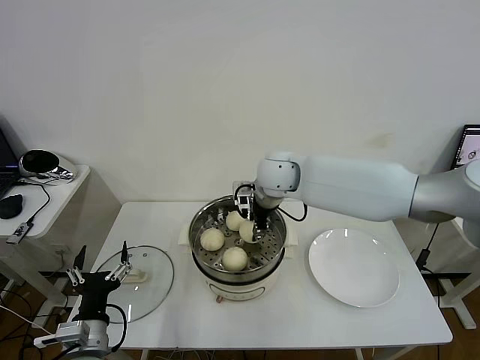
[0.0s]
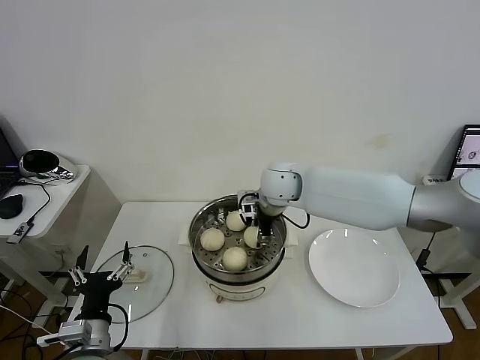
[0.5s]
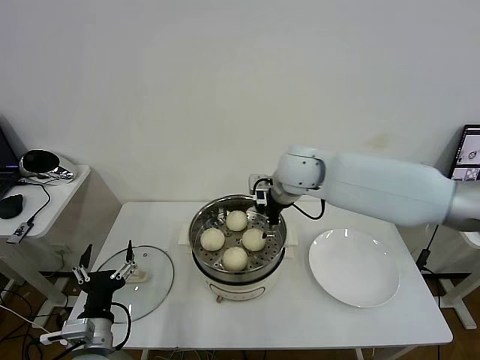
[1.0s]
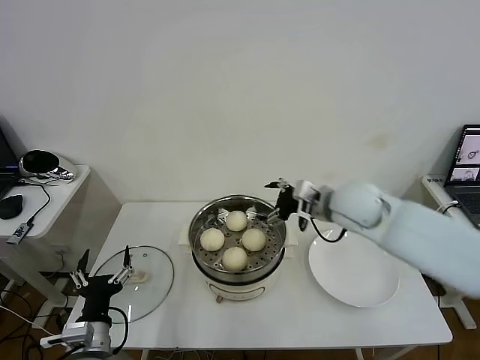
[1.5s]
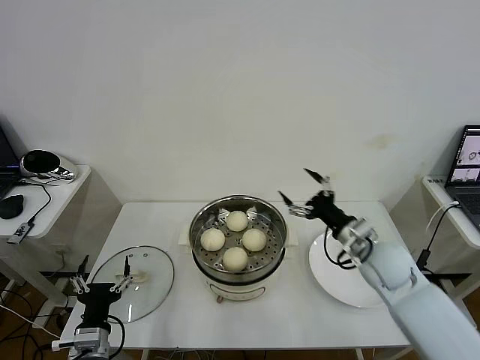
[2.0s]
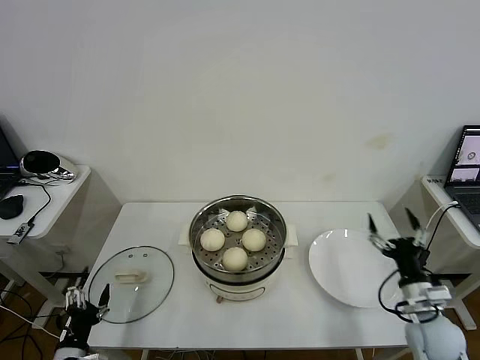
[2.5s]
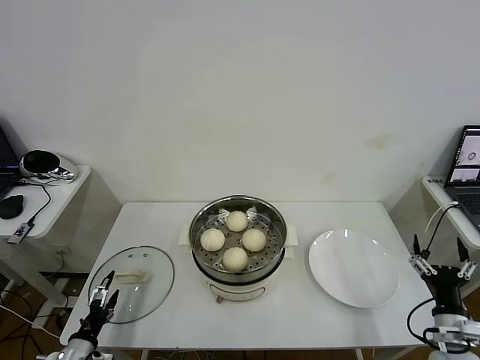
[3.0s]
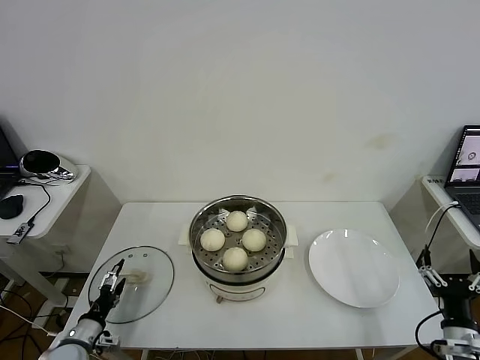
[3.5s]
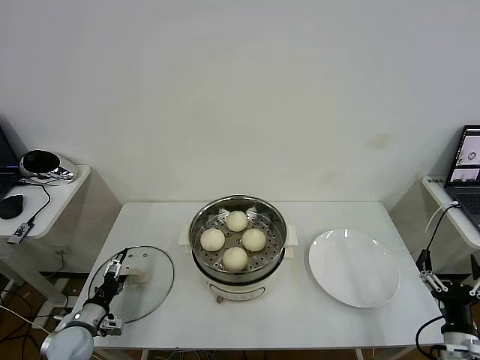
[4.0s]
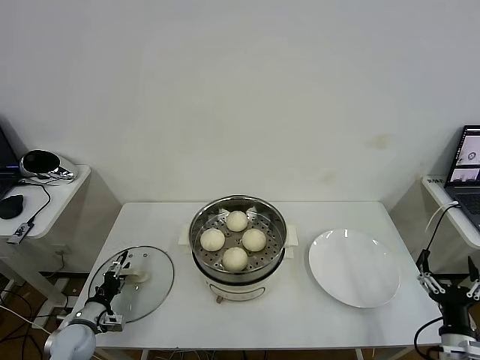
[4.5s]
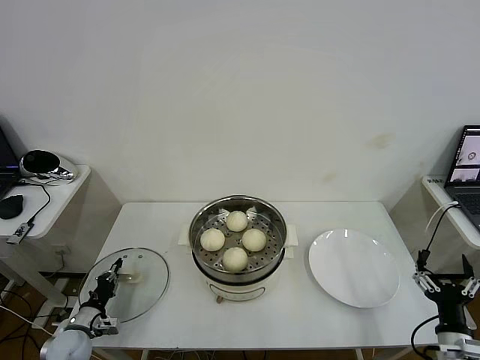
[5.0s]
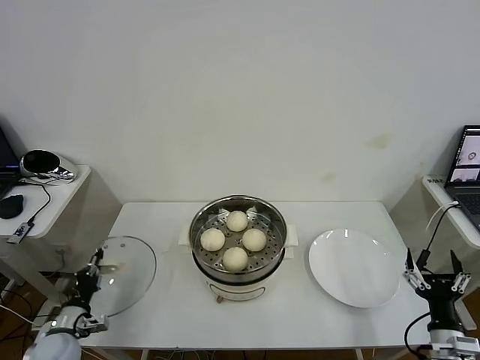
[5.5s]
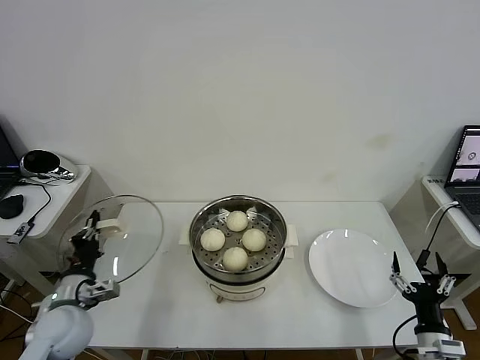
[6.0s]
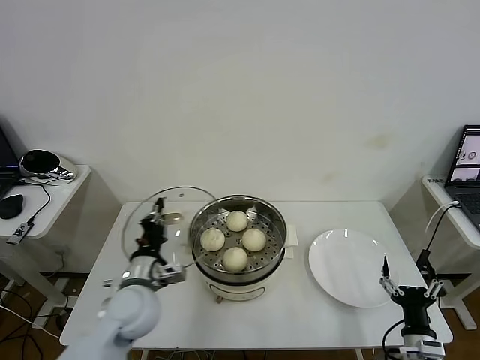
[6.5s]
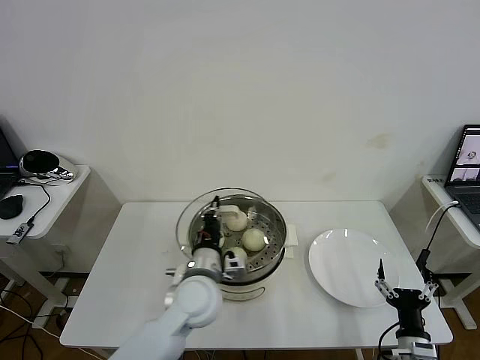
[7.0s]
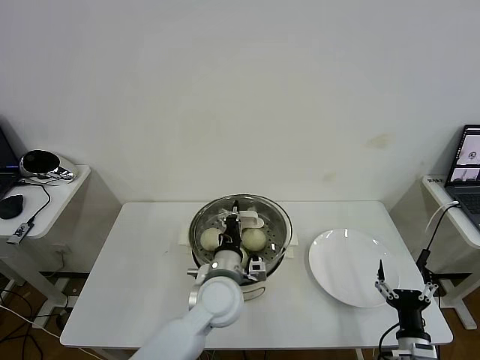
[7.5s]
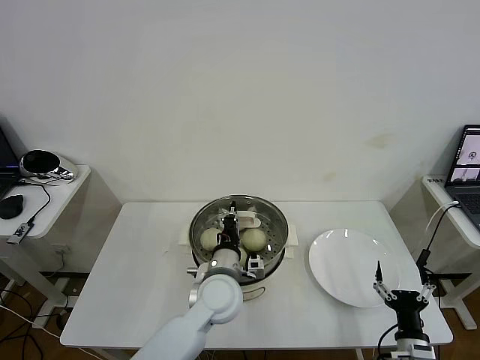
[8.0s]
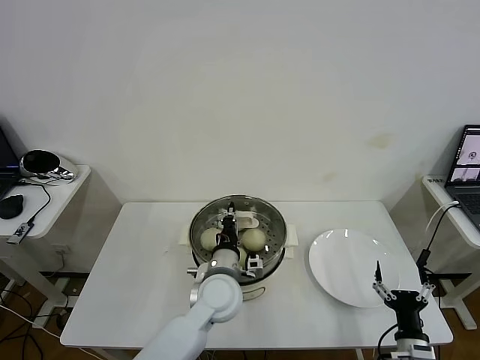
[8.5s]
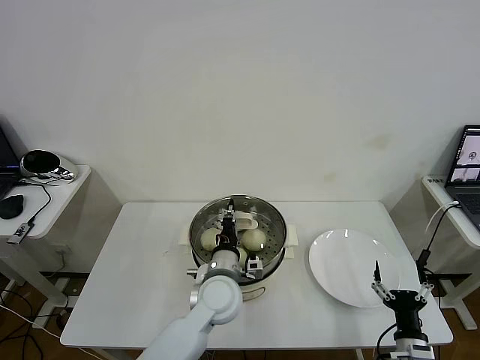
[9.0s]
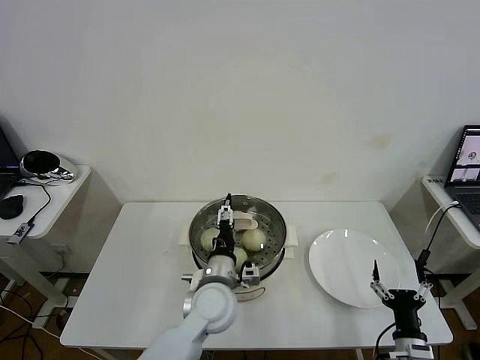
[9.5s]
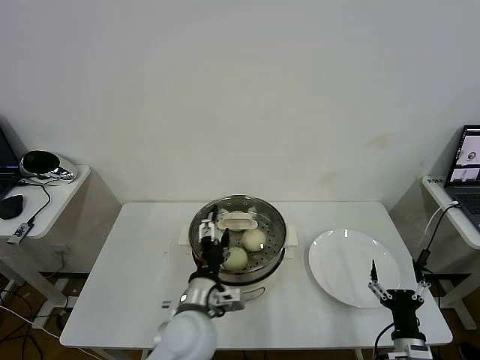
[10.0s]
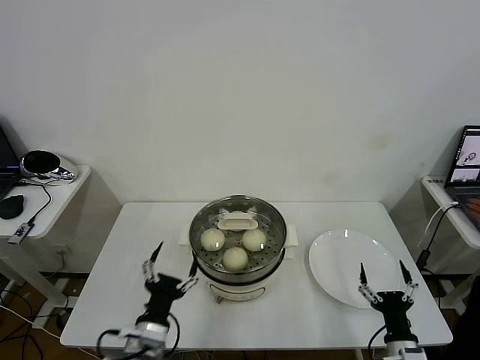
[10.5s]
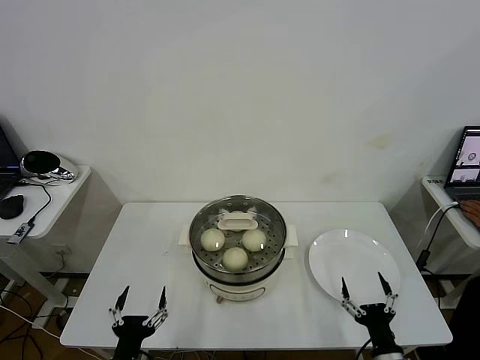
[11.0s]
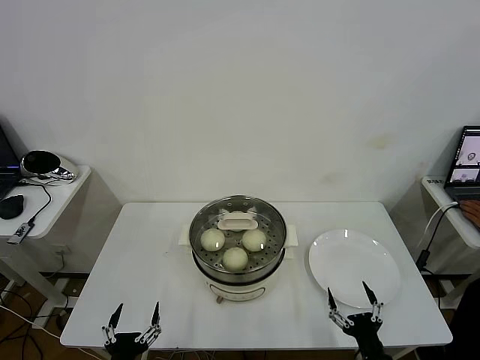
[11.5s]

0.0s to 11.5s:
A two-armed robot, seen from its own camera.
Task of the whole recording: take steamed baozi put them in steamer then cover it.
Step, 1.0s to 5.0s: Grasp the pot lid with left gripper.
Step, 5.5s to 9.5s: Place the pot lid on the steamer with left gripper.
0.0s to 2.0s: The right gripper travels to the right, backward and downward by about 30 cm, and opens its fingers.
2.0s to 4.0s: The right gripper travels backward, to the right and downward by roughly 30 cm. The left gripper goes some 20 cm to the left, downward and forward.
4.0s to 6.0s: The left gripper moves upward, approximately 15 cm, and closes its fingers.
6.0s to 7.5s: The left gripper is displaced to the right by roughly 30 cm.
7.5s to 9.5s: The left gripper opens its fingers.
9.5s to 11.5s: The right gripper moves to the left, some 5 cm, while the left gripper shifts some 30 cm backward and to the left.

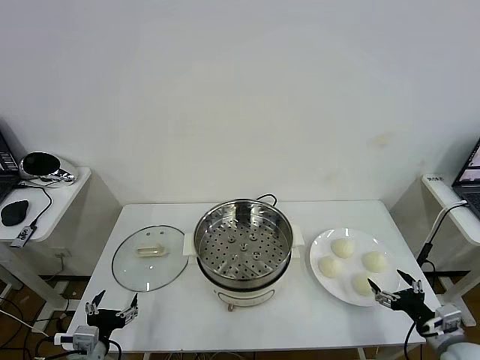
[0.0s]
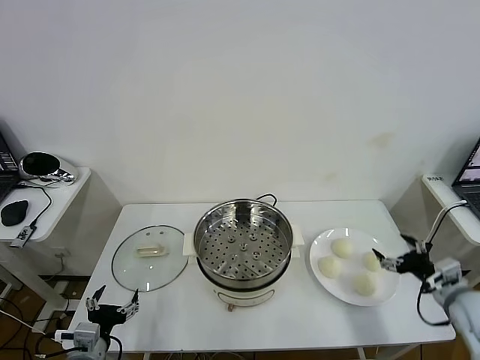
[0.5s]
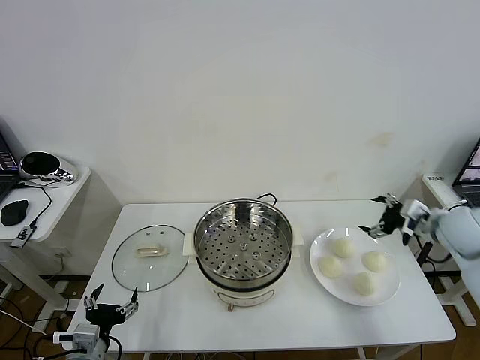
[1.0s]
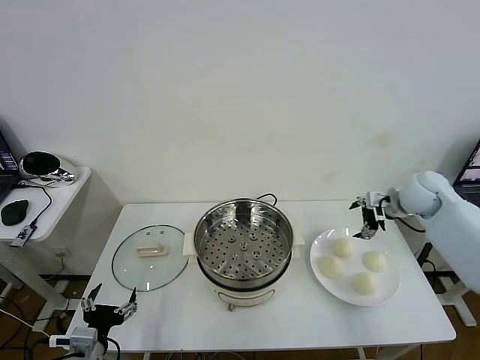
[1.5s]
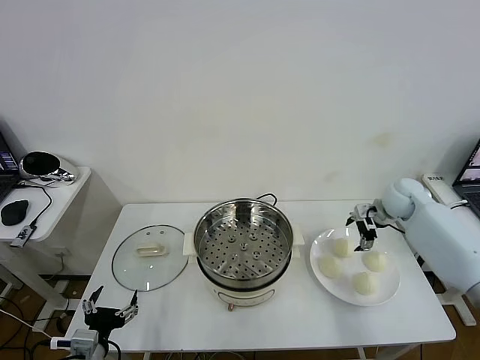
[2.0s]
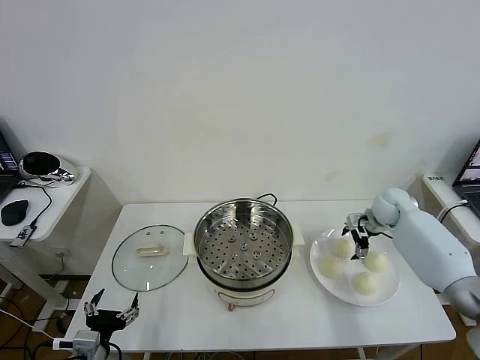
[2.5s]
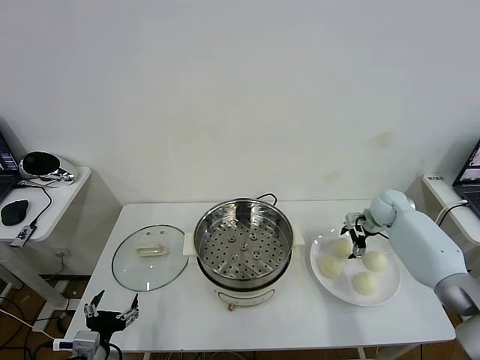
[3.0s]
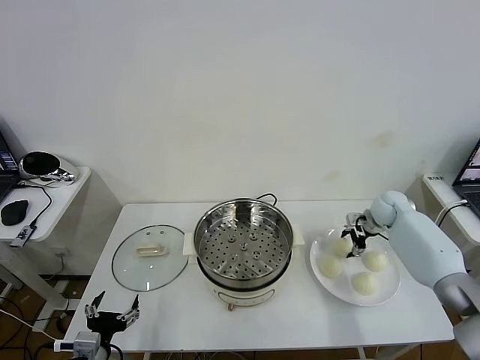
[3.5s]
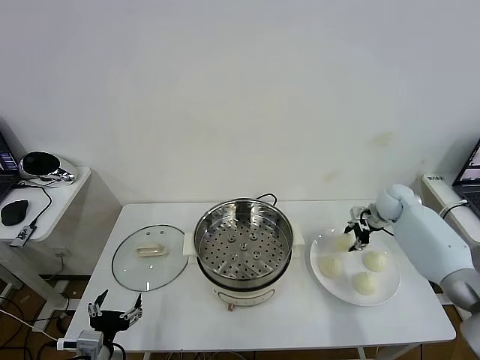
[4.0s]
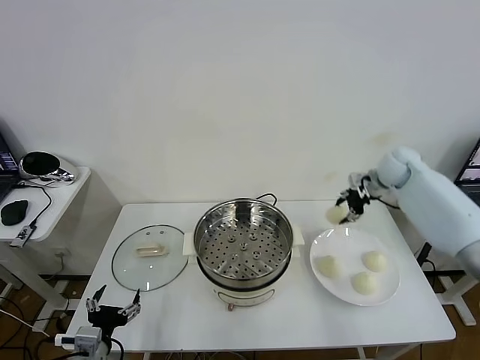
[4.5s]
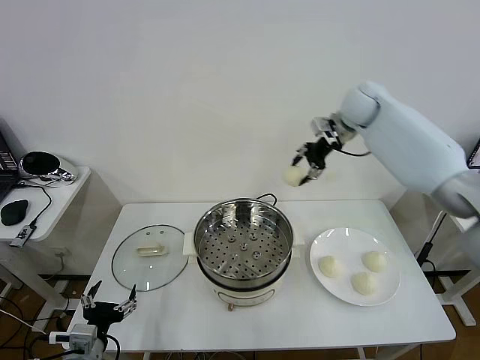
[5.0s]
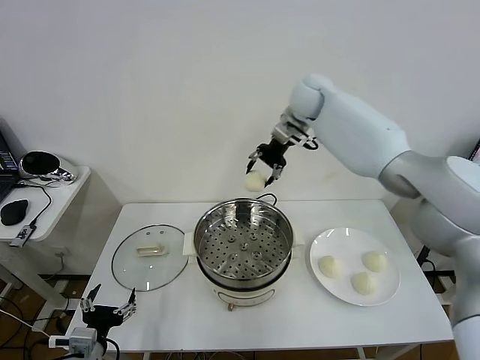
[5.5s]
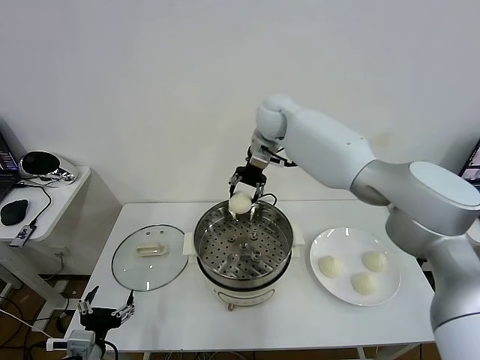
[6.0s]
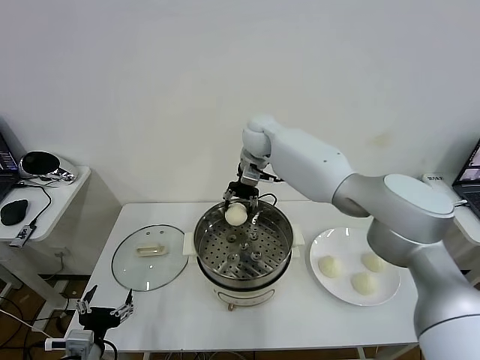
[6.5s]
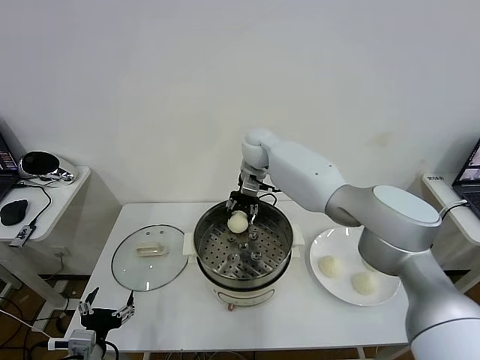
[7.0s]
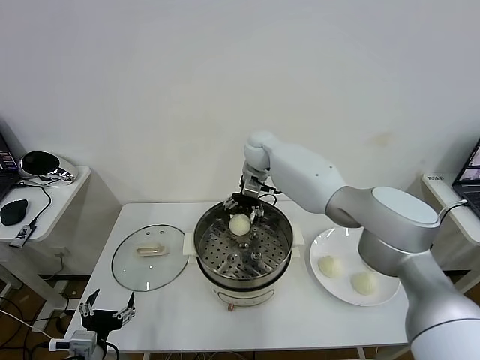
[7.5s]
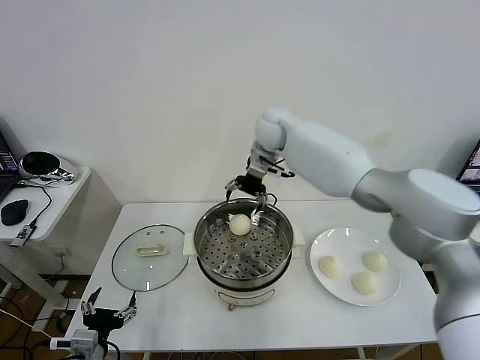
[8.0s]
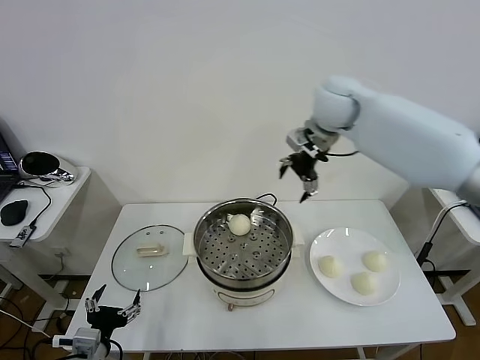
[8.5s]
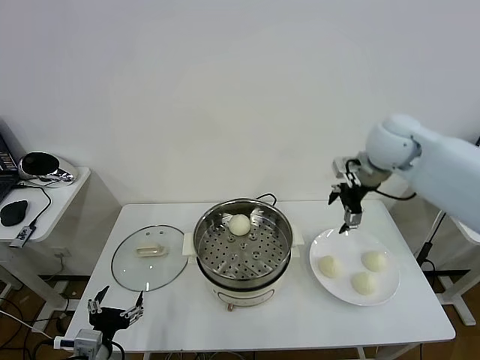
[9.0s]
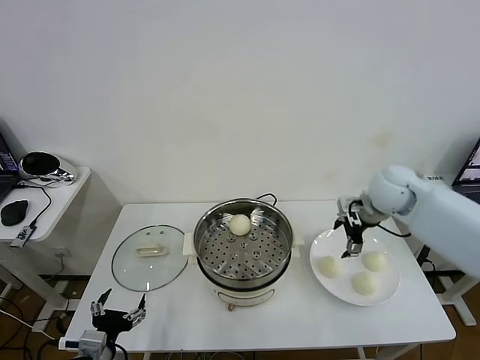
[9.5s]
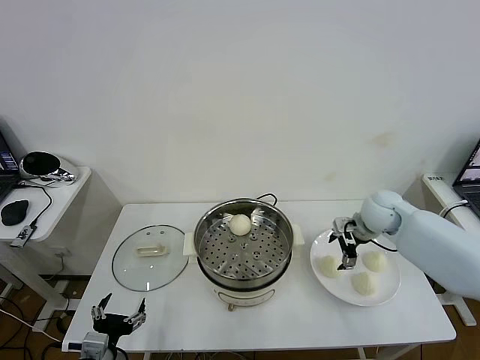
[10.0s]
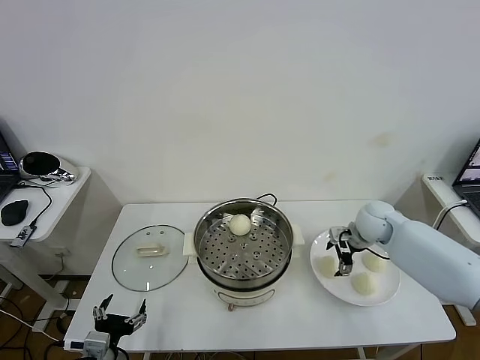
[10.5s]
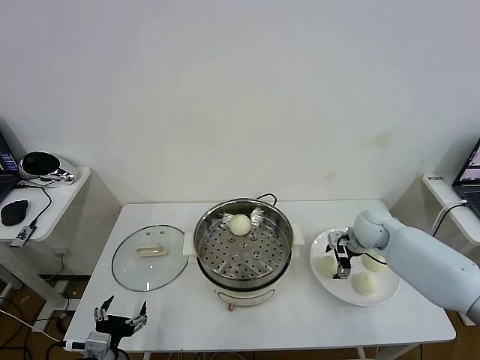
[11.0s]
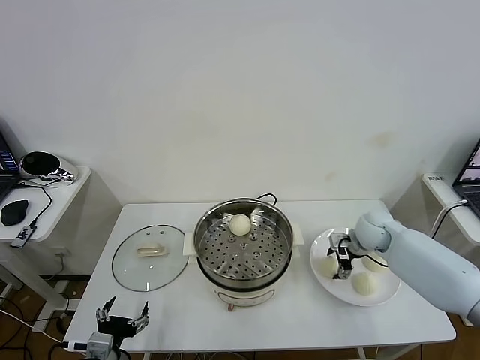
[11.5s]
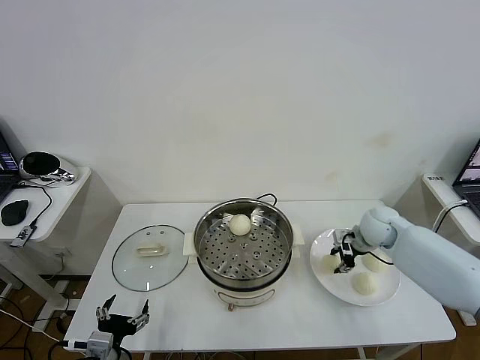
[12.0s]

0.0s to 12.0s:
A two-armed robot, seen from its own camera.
Task of the whole recording: take steamed baozi put them in steamer then cover it.
Step, 0.0s to 3.5s: Grasp the baozi in the plate with right gripper.
Step, 4.0s to 7.5s: Place the baozi on the steamer with right gripper.
Step, 8.0s to 11.5s: Grasp the baozi in the plate with right gripper.
2.0s to 4.0s: The right gripper closes up.
4.0s to 6.0s: The right gripper is displaced to the left and upward by approximately 40 cm.
6.0s to 8.0s: The right gripper travels downward and back again, about 5 cm each way, and opens up.
8.0s to 10.0s: The right gripper goes approximately 30 cm to the right, downward and backward.
10.0s to 12.0s: The right gripper closes its fingers.

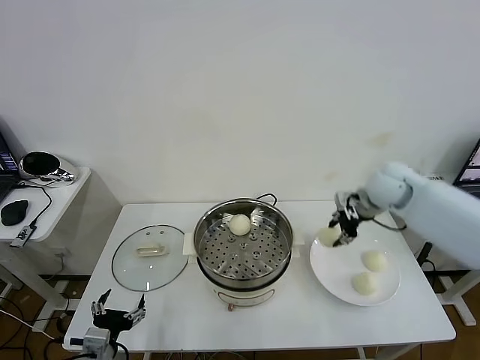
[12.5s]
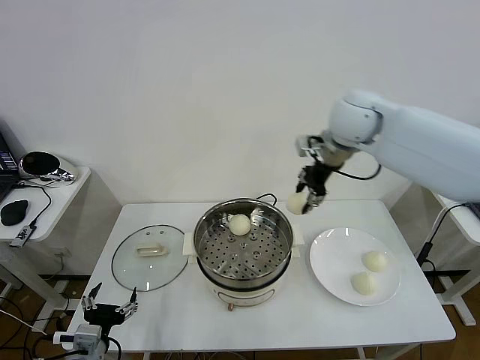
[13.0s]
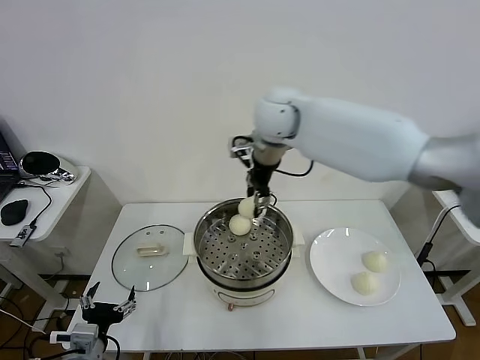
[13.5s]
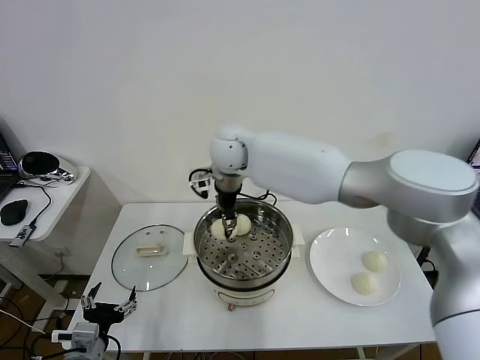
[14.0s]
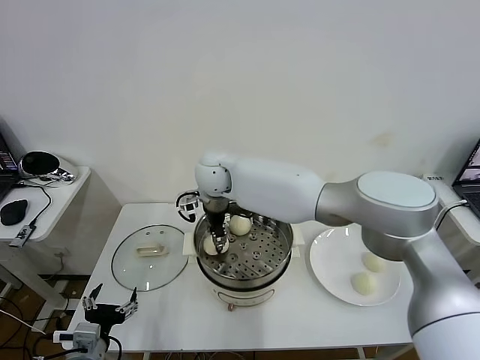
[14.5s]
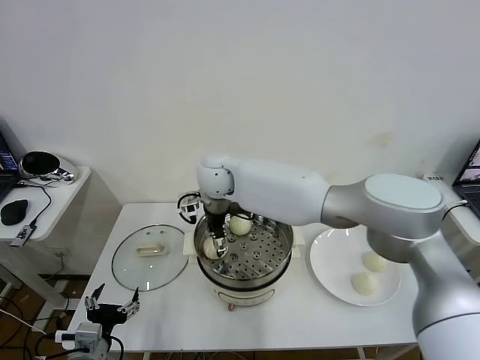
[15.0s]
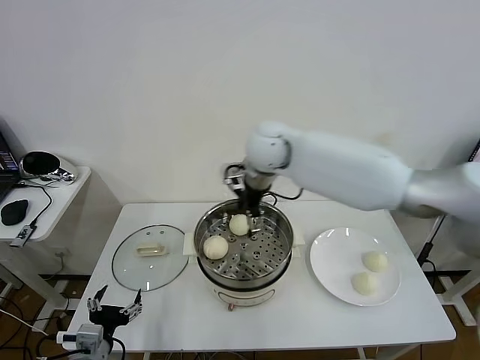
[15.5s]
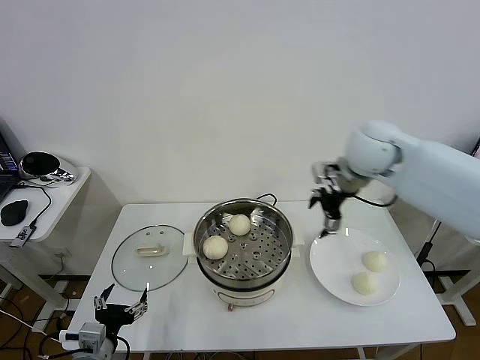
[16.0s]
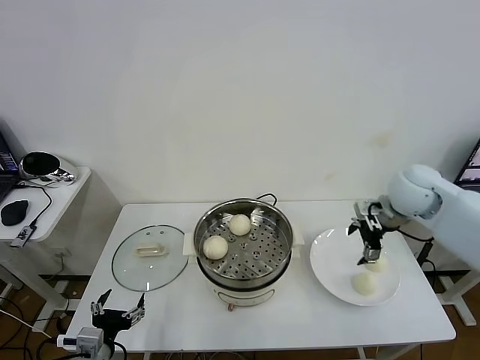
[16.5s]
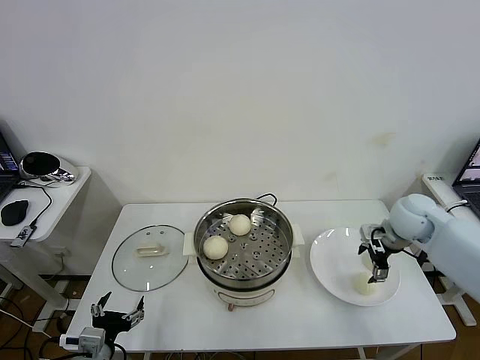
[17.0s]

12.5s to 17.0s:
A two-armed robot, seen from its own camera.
Task of the whole recording: take steamed baozi put them in steamer then cover it.
Step, 12.5s to 15.0s: Place the baozi on the steamer with right gripper.
12.5s to 14.5s: The right gripper goes about 35 cm to the left.
14.5s to 17.0s: The right gripper is displaced to the right by about 40 cm, and opens up.
